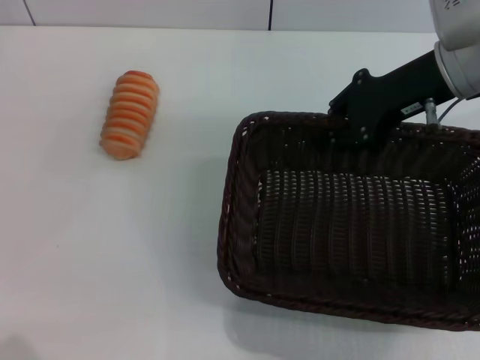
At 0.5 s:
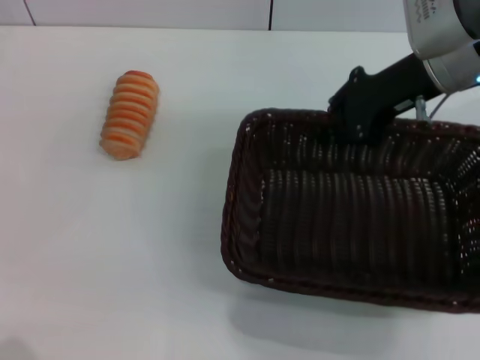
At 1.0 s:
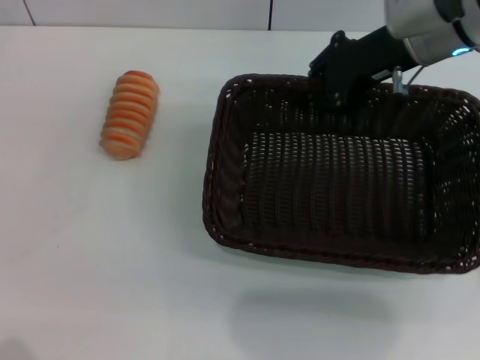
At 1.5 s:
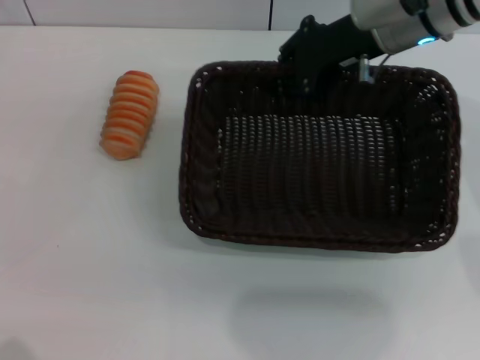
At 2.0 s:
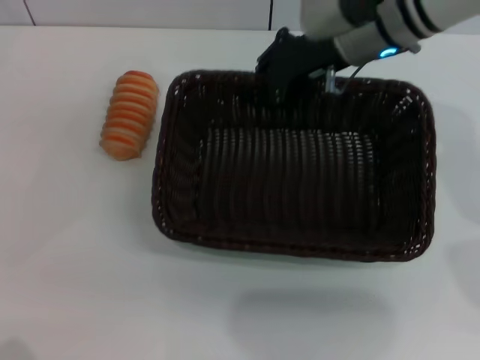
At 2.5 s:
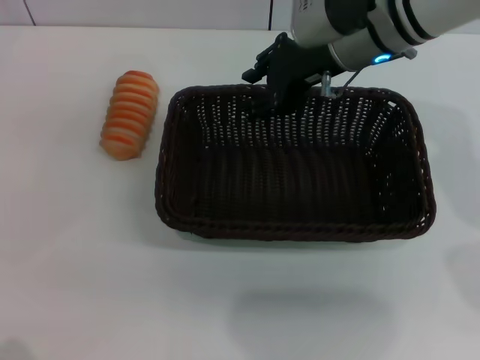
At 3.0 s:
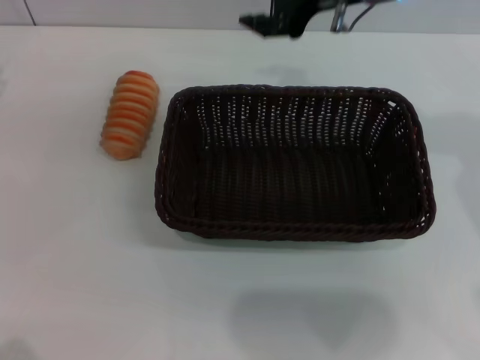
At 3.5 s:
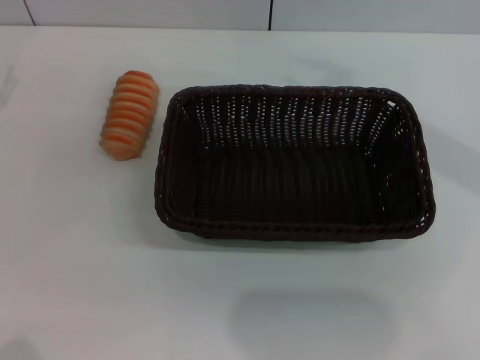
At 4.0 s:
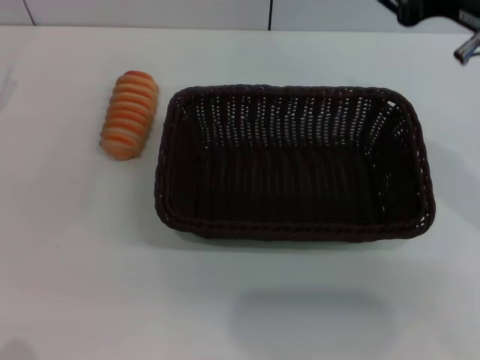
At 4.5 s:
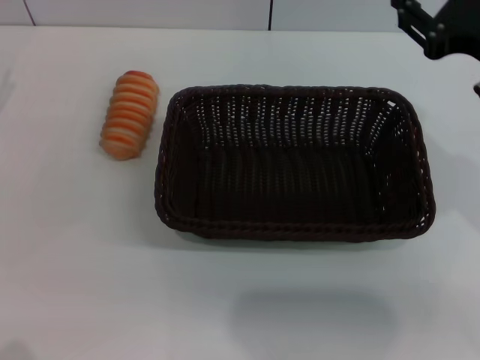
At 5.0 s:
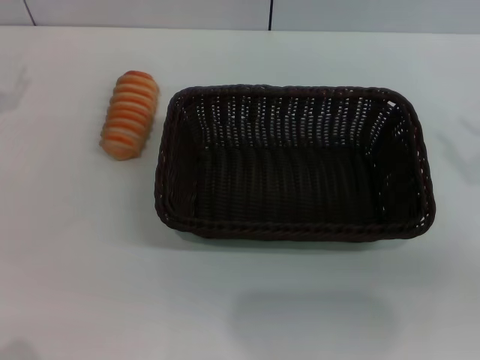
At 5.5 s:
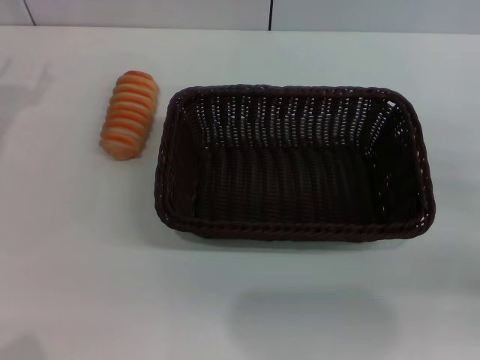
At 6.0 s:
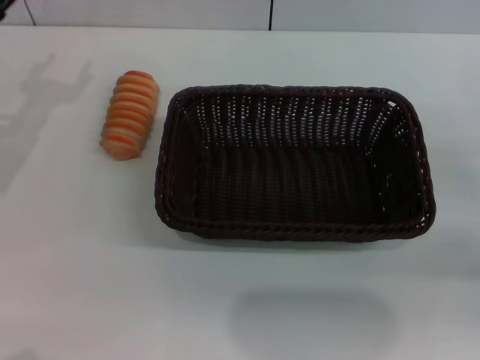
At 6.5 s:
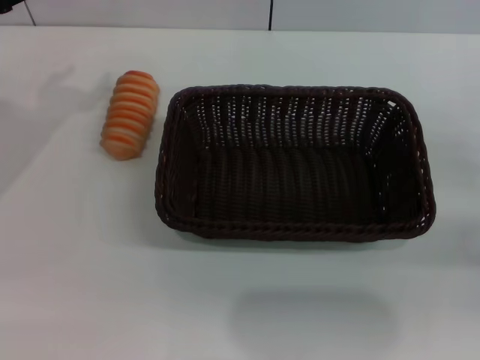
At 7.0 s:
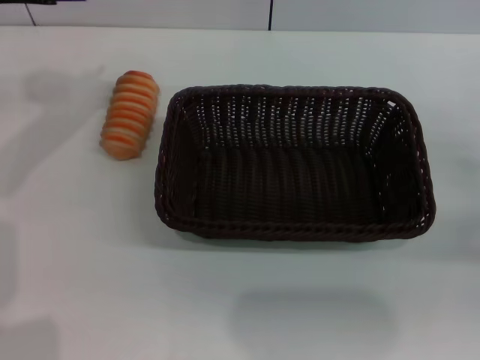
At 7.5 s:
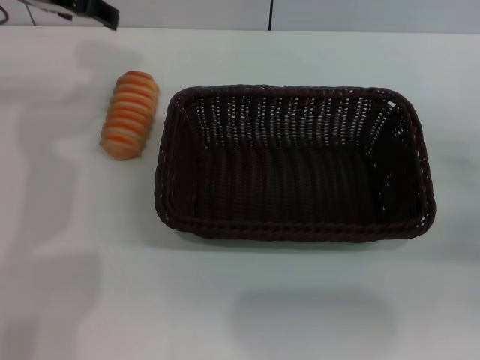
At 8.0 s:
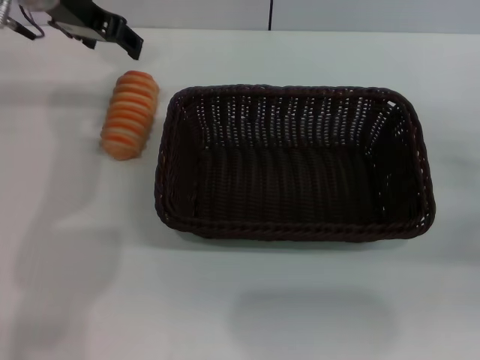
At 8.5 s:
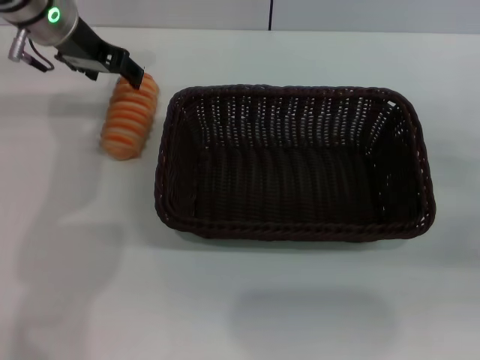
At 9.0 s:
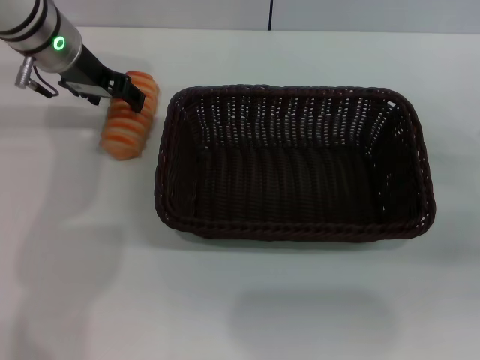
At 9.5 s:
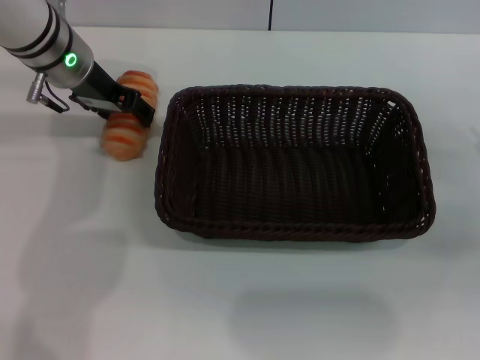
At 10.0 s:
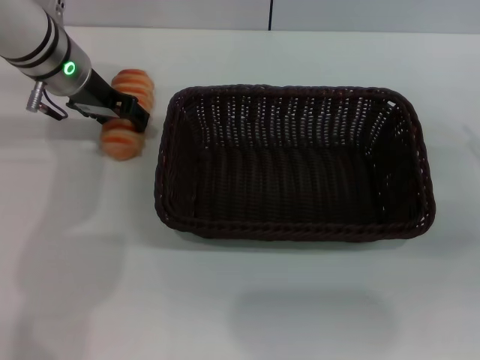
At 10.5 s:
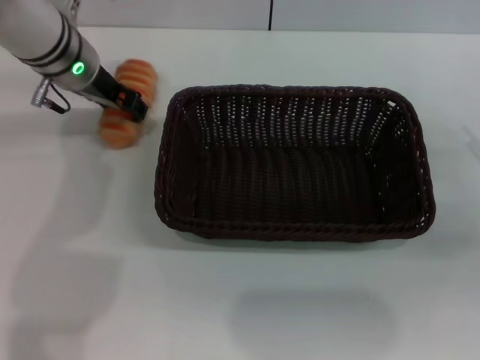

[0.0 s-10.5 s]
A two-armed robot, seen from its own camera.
Step, 0.0 to 2.5 s: Place the dark basket in the center of view with the right gripper.
0.0 to 2.0 s: The right gripper shifts roughly 10 cm to the left.
2.0 to 4.0 s: The right gripper goes some 15 cm backward and to the right, and opens up.
4.0 to 6.5 s: The right gripper goes approximately 25 cm to the right and downward.
6.5 to 8.5 s: The left gripper travels forward and to the right by some 15 cm.
8.5 to 10.5 s: The left gripper changes place by some 5 cm, and closes up.

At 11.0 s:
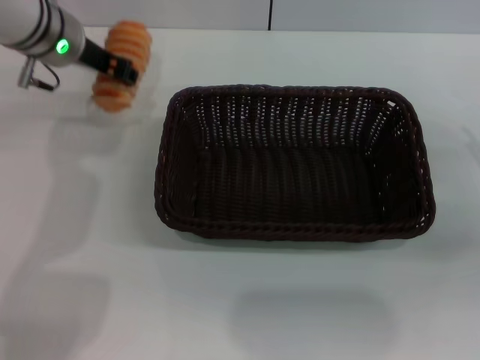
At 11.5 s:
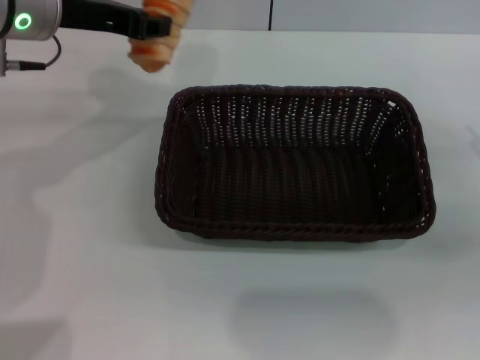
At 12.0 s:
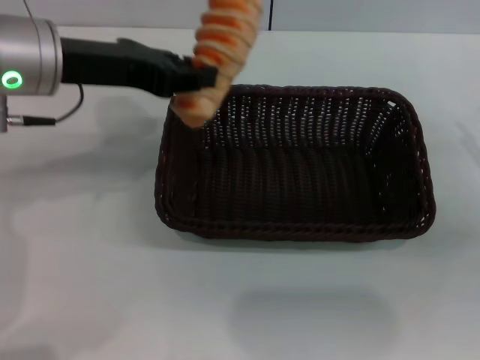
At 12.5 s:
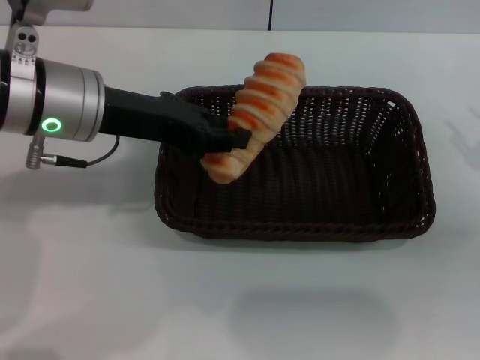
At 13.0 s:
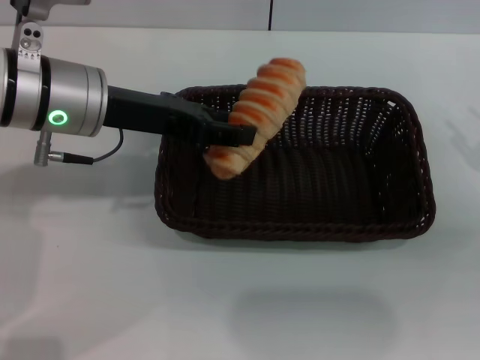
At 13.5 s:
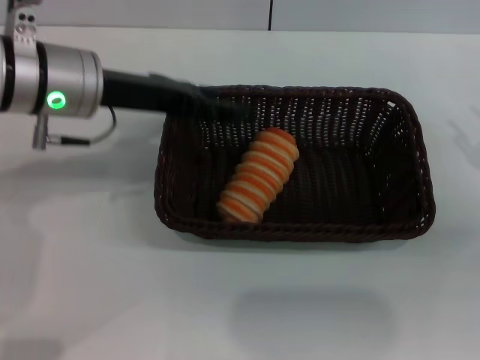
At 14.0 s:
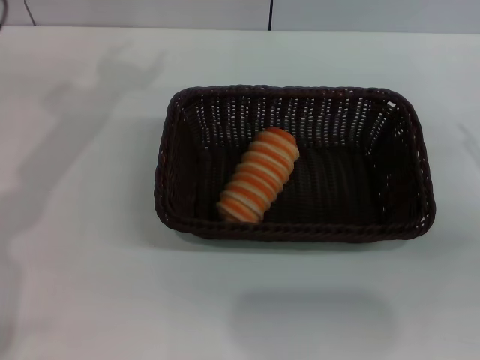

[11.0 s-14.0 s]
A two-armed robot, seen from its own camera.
Step, 11.5 to 13.5 s: Place the long bread into the dark basket with the left gripper.
11.0 to 12.5 s: The left gripper shifts some 10 cm backward, and closes up.
12.5 to 14.0 s: The left gripper shifts some 5 cm to the left, and opens.

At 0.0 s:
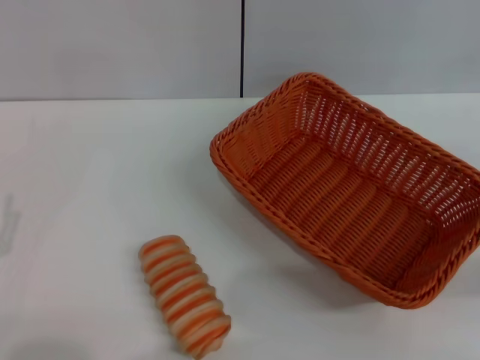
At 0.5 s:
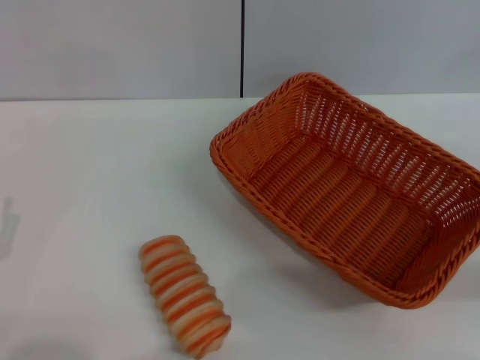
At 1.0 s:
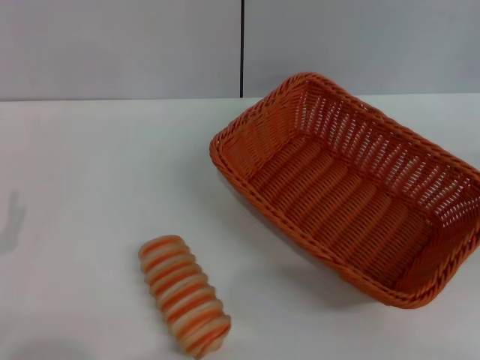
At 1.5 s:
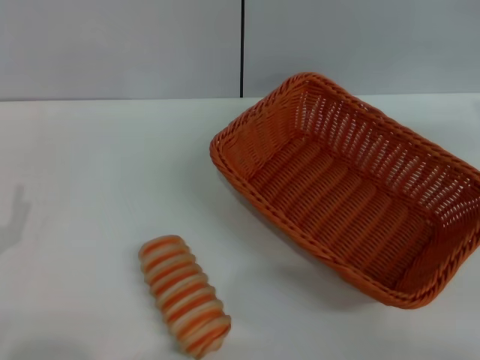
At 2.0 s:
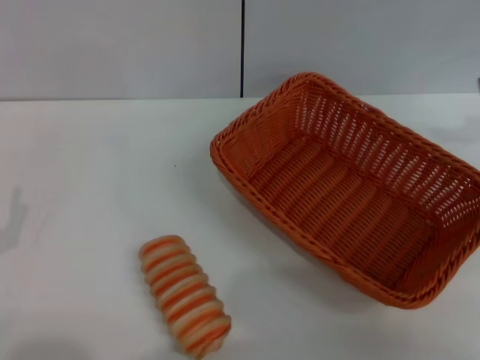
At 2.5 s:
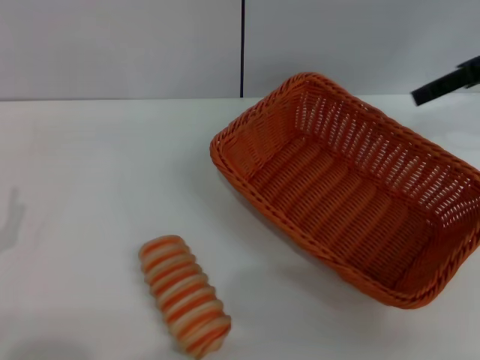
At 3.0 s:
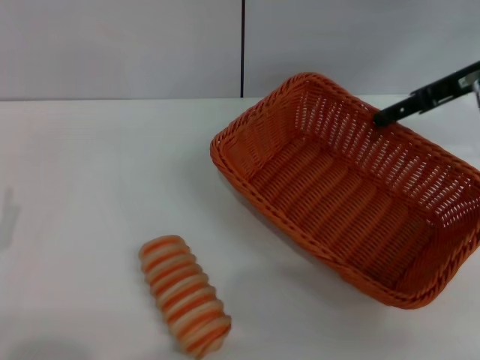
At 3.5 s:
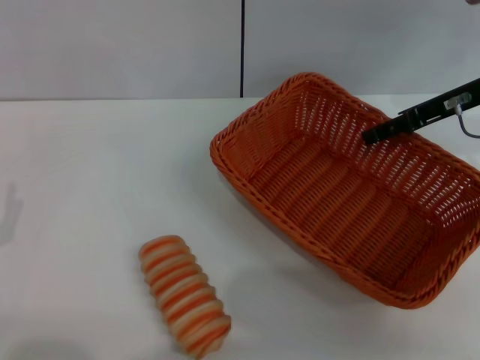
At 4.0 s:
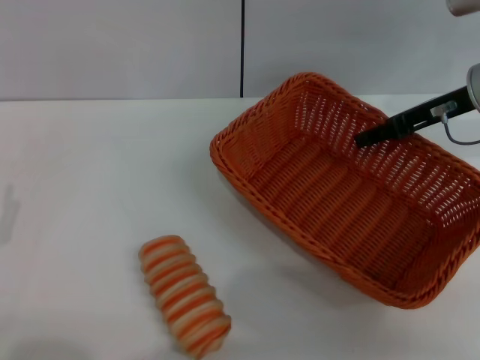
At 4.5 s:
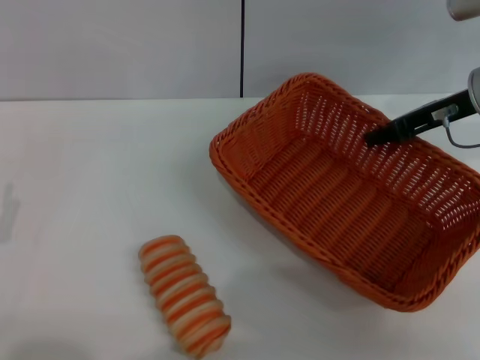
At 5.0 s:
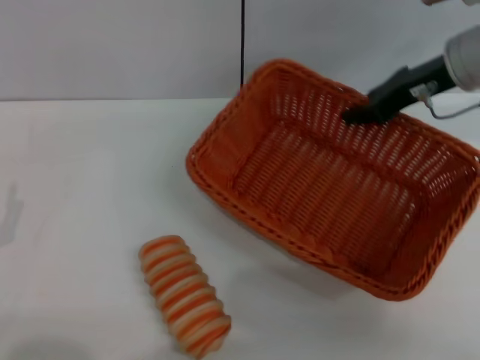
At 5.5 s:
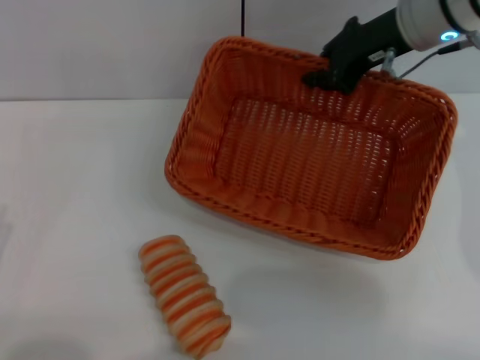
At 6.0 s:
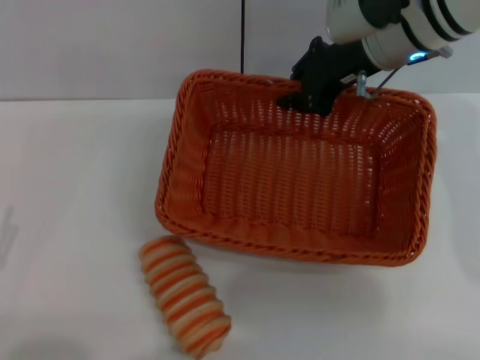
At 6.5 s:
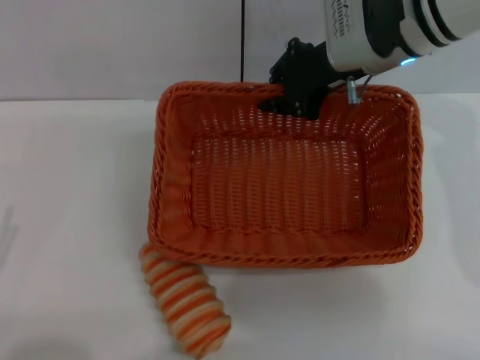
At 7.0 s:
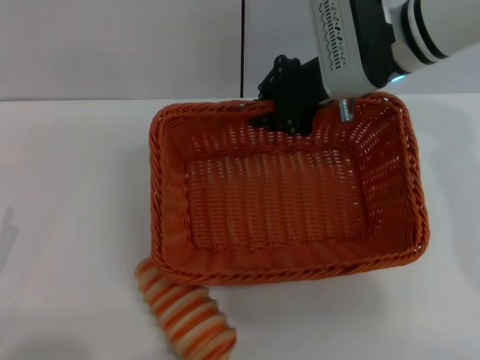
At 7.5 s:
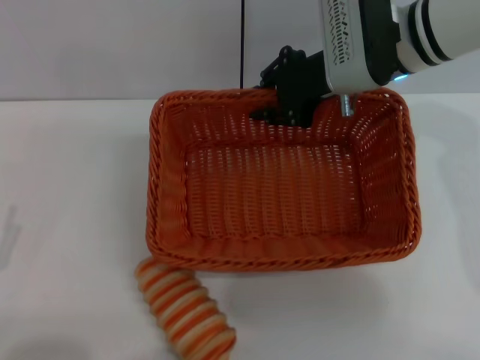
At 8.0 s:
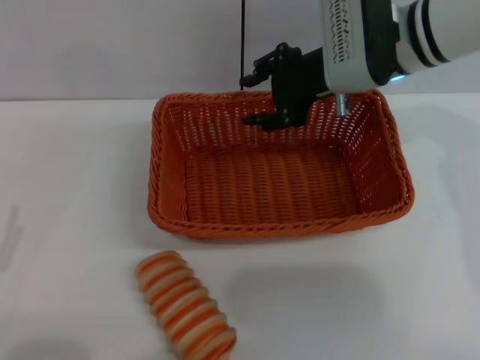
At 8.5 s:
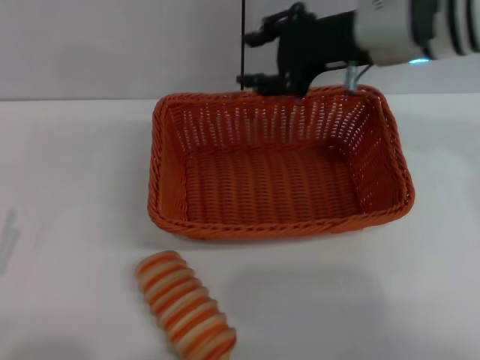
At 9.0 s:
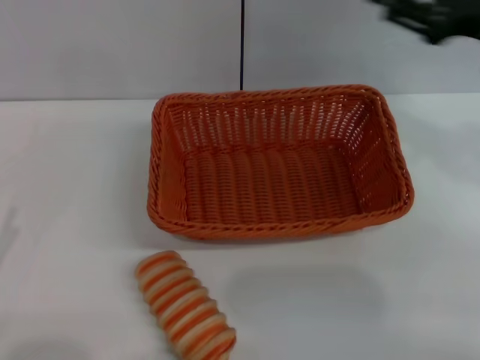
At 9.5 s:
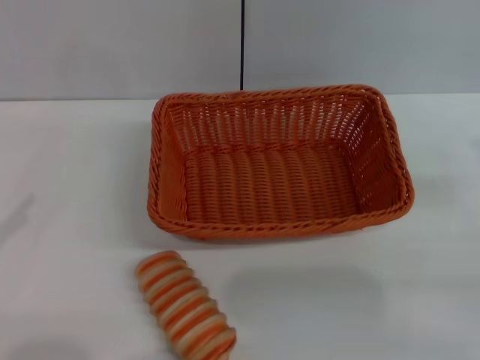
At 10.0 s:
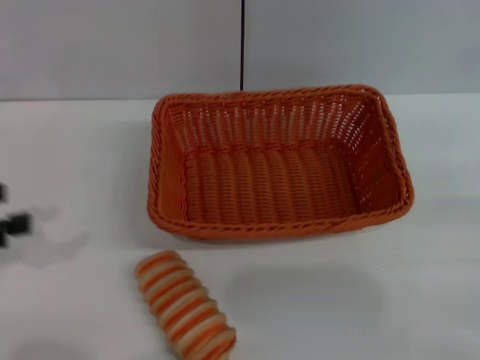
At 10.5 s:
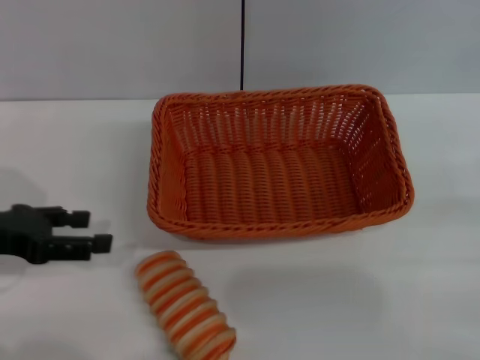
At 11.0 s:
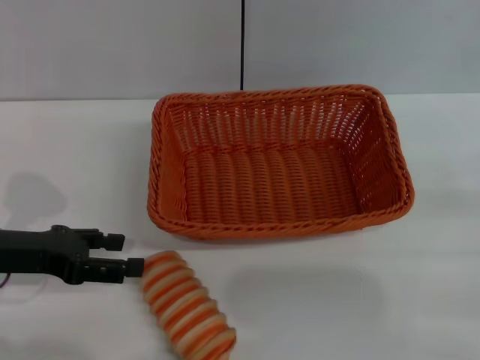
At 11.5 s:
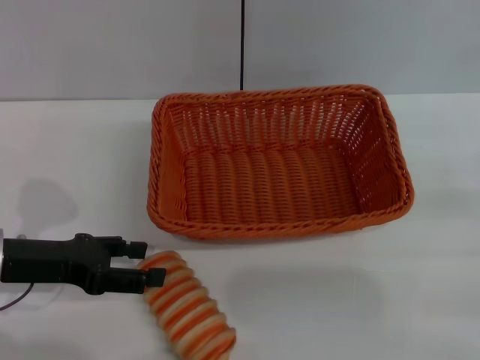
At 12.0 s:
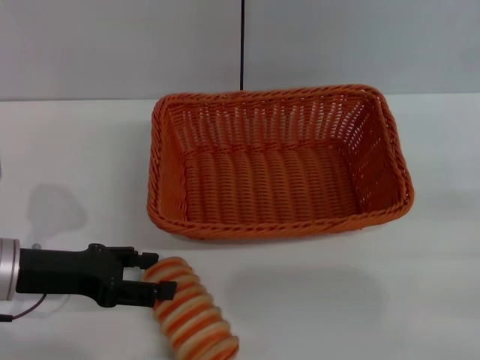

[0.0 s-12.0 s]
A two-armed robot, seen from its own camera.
Step, 0.0 to 5.0 s: Pick up the light basket with the right gripper.
Step, 6.0 to 8.5 s: Place the light basket in the center of view with the right gripper.
0.0 to 2.0 s: The right gripper shifts about 25 cm upward and forward, and opens its fingers.
2.0 to 4.0 s: The right gripper goes approximately 15 cm to the left and downward.
4.0 to 6.0 s: The right gripper moves to the left, some 10 cm, and closes its fingers.
6.0 to 8.0 s: The right gripper opens.
8.0 to 10.0 s: The left gripper is displaced upward and forward by some 15 cm. The right gripper is displaced to the right and backward by approximately 35 cm.
10.0 to 12.0 s: The left gripper goes about 15 cm downward and to the right.
